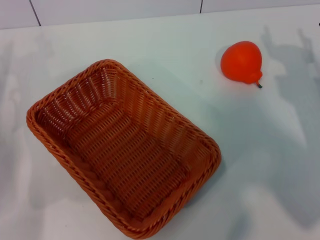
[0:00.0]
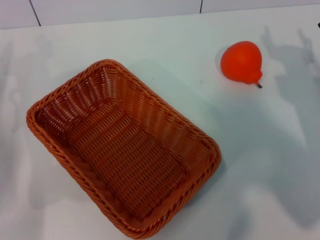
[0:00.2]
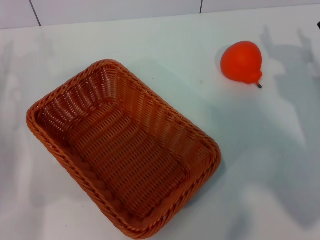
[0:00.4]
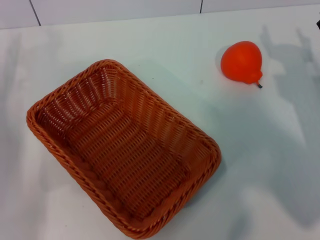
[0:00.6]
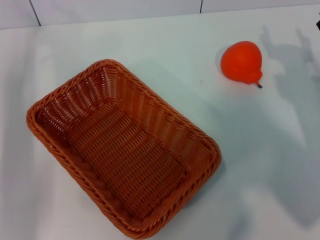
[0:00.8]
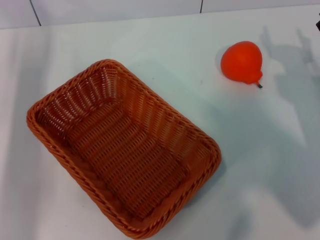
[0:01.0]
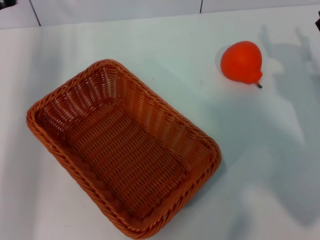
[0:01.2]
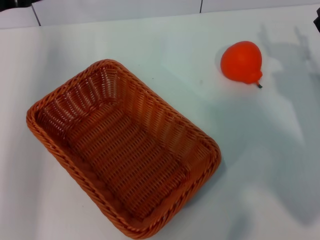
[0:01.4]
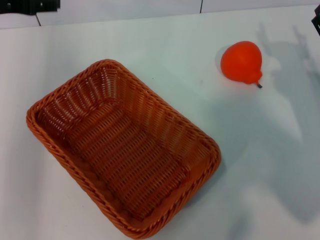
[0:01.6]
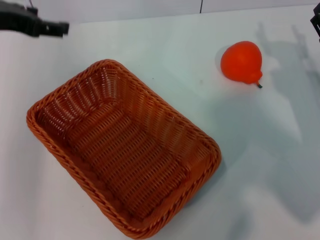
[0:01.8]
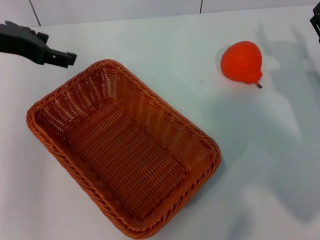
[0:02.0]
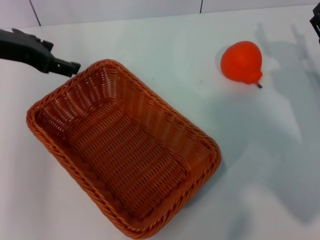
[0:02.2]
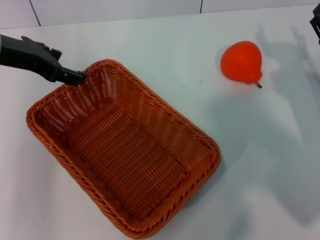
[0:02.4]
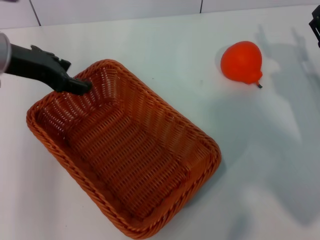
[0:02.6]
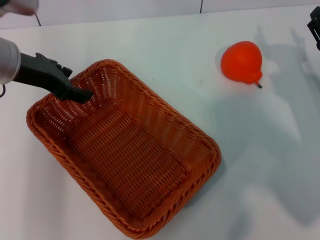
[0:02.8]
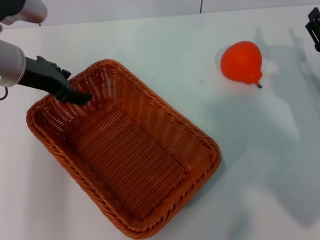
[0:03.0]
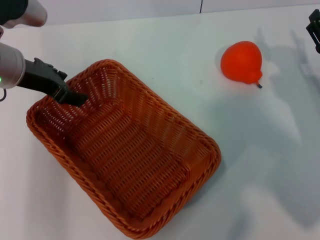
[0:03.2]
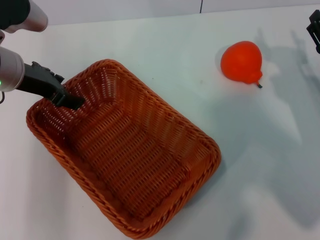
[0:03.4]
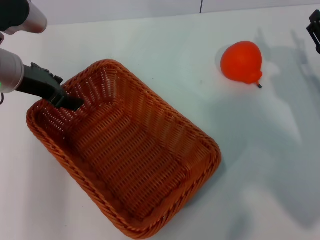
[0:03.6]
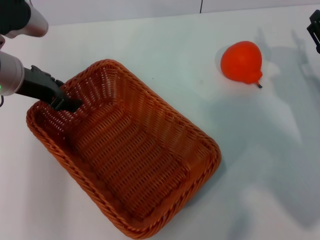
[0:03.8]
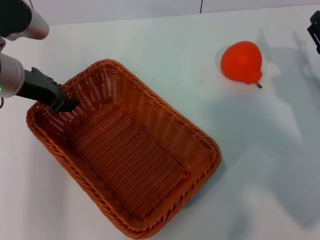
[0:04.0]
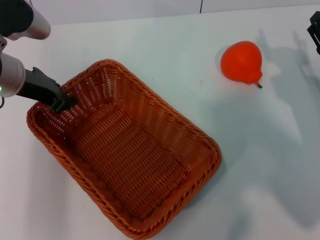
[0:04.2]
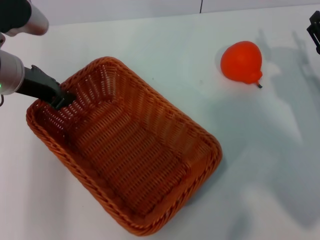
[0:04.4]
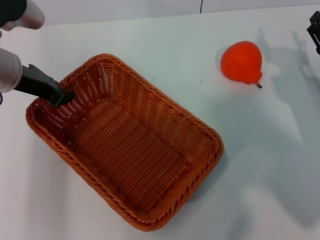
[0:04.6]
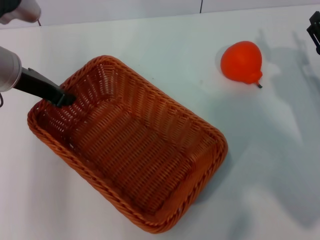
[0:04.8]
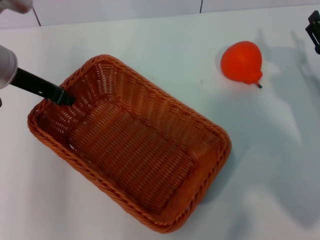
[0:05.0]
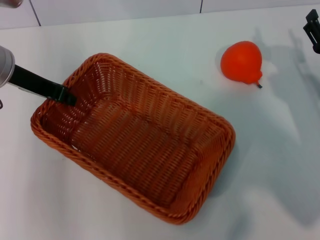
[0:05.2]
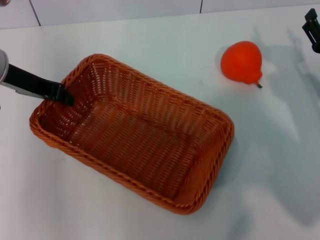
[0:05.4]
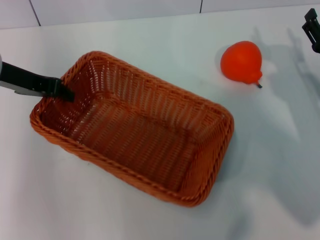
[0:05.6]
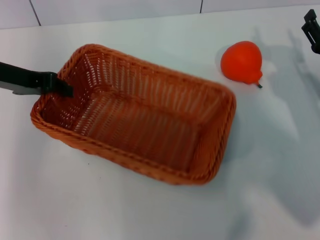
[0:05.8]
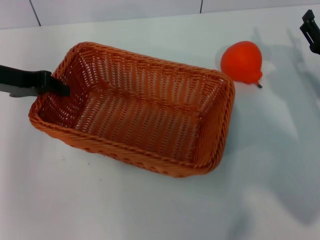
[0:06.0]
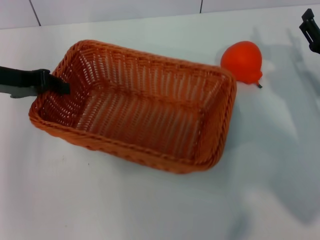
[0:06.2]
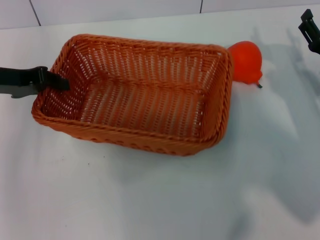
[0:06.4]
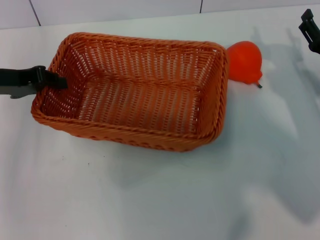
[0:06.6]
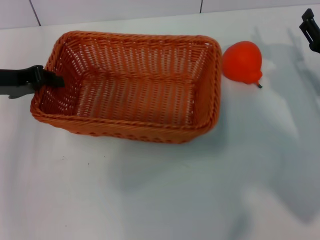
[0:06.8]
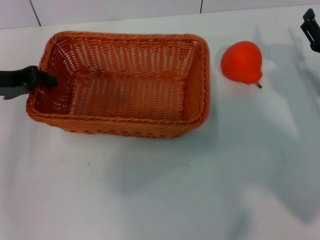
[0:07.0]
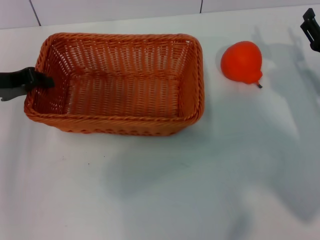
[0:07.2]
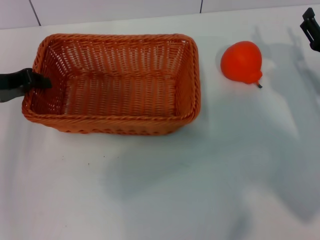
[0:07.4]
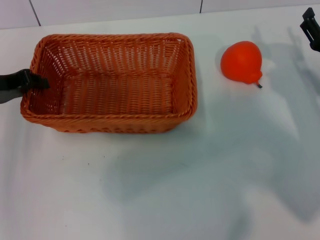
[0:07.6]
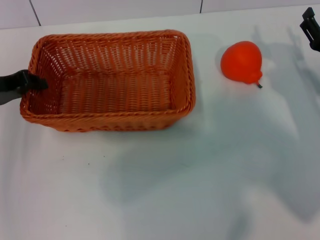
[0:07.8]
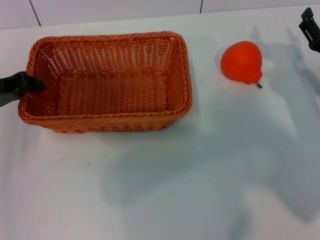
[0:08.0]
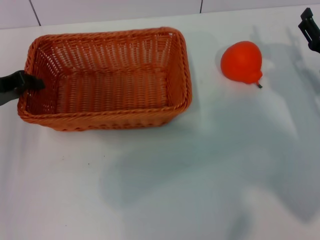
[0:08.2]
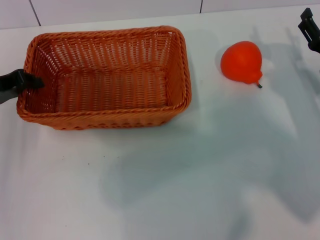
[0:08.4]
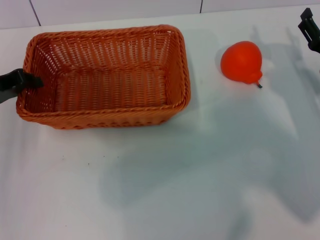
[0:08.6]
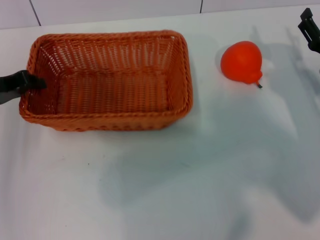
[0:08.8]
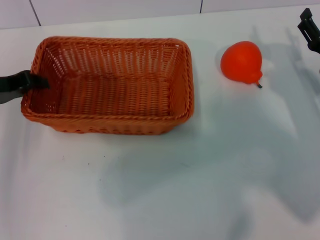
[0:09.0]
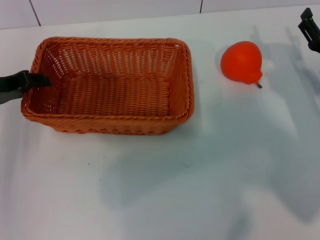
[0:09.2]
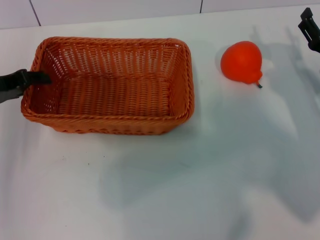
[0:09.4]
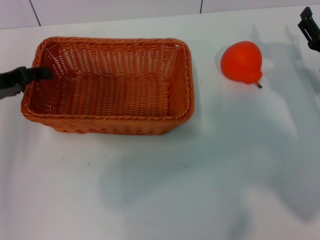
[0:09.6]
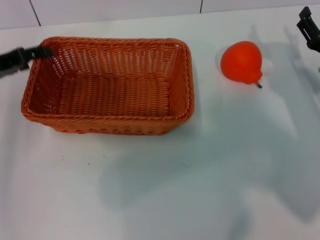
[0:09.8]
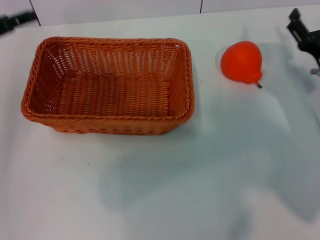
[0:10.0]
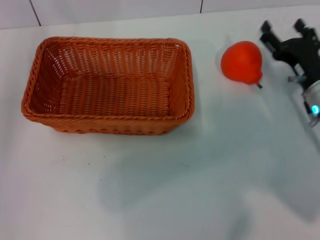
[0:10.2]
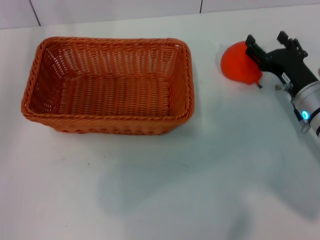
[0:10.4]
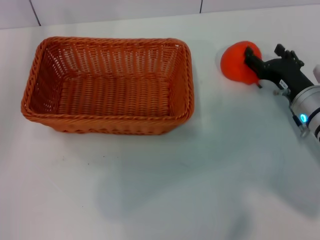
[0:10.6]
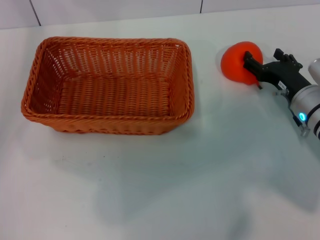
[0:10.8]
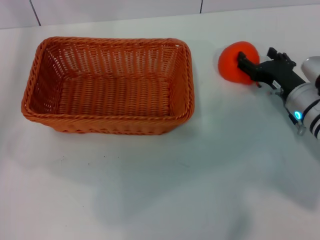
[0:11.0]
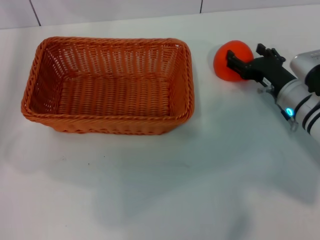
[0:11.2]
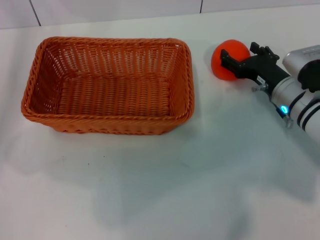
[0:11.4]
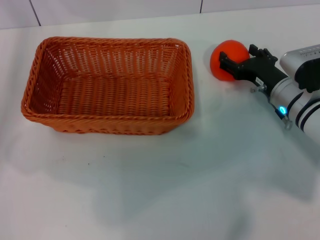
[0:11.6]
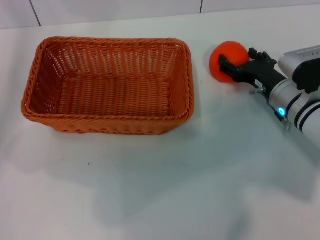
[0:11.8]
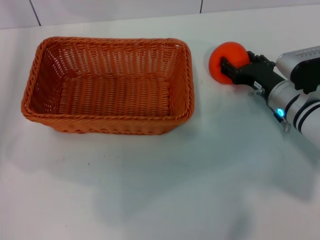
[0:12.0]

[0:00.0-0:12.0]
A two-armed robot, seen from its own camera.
Task of the whole recording: the left gripper pick up the yellow basket and place it horizontally in the middle of the table, the right gripper pick up the orange and place it into the yellow basket.
Step, 0:00.0 to 0:05.0: Pick up the light basket with the left gripper.
Step, 0:05.2 to 0:09.8: Place the light basket in the center of view with the left gripper.
0:00.0 to 0:01.6: The left gripper travels upward and forward by approximately 20 cm.
0:01.6 to 0:03.0: The left gripper shifts by approximately 5 cm.
0:03.0 to 0:04.4: The left gripper closes.
0:04.4 to 0:06.0: The left gripper travels to the left by roughly 5 cm.
0:06.0 to 0:07.6: The left gripper ends up approximately 5 cm from where it was.
0:07.6 to 0:09.0: The two grippers keep their place.
0:09.0 to 0:10.4: The left gripper changes place by approximately 5 cm, and opens.

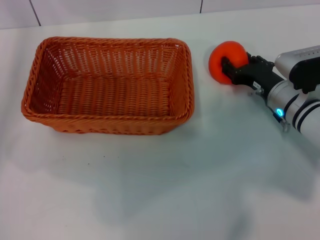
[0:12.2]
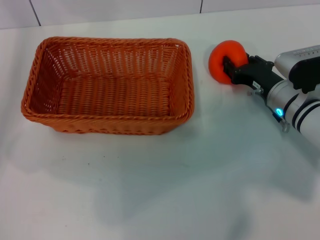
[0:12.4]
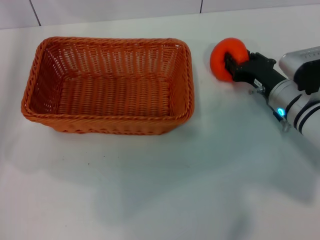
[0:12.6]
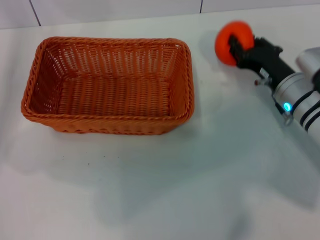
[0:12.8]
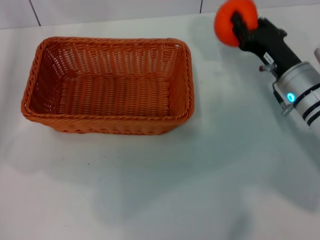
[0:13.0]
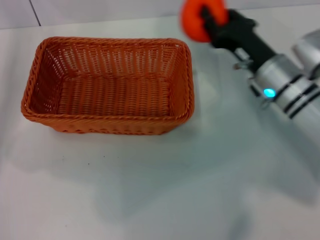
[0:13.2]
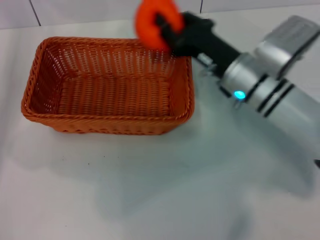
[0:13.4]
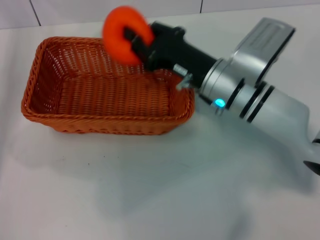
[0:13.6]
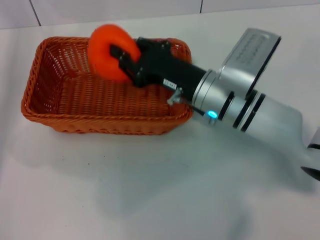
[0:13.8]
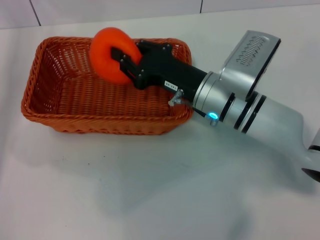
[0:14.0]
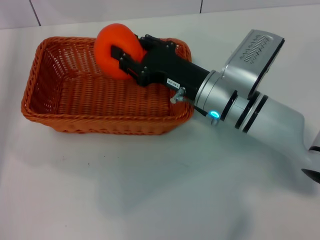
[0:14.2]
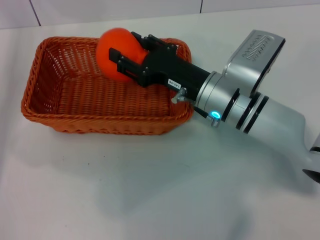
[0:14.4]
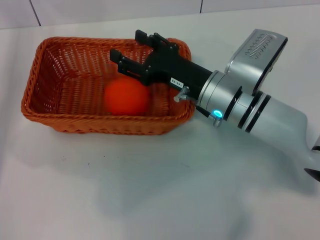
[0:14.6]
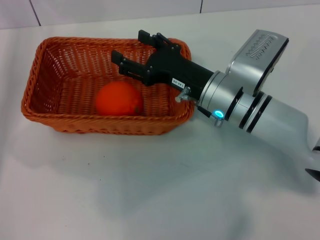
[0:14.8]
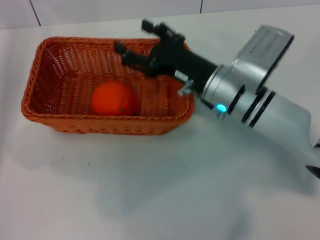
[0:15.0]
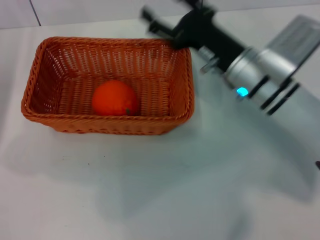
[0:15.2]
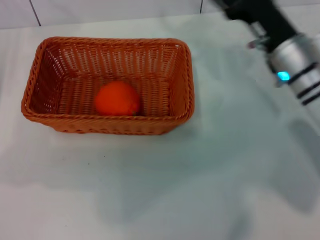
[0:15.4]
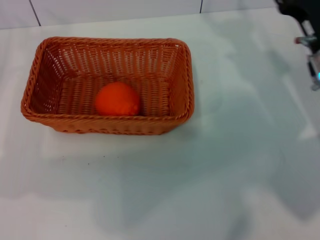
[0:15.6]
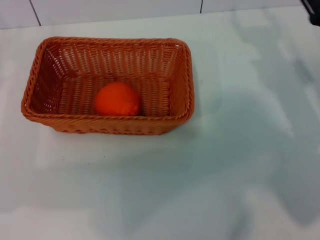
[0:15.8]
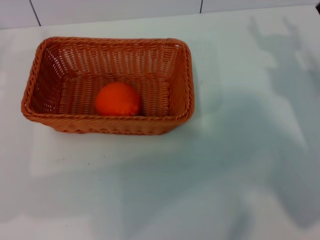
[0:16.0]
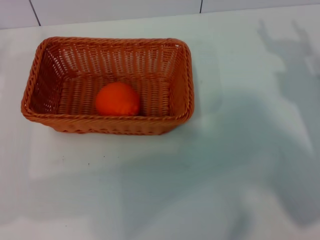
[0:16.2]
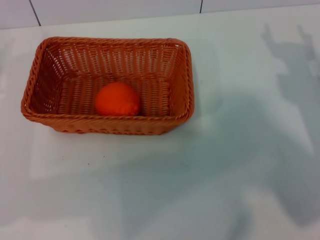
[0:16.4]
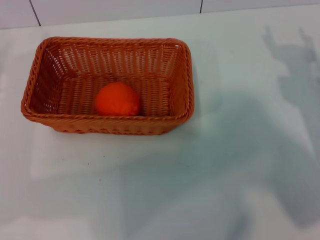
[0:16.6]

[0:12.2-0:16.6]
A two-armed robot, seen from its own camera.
Task of the whole recording: the left gripper pick up the yellow basket and place it horizontally in the middle of the table, the right gripper pick up the orange and place it into the yellow basket.
Step, 0:13.0 to 0:14.8: Place the orange into the light basket with the right gripper.
0:12.2 to 0:13.6: The right gripper is displaced to the left and upward by approximately 15 cm, and closes.
0:13.6 to 0:15.2: The right gripper opens its fingers.
0:15.2 to 0:16.6: The left gripper goes about 5 cm backward. The right gripper travels to the right by about 15 cm.
